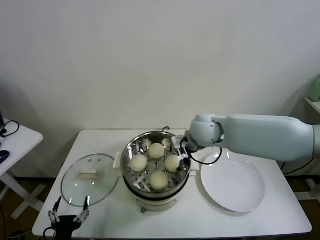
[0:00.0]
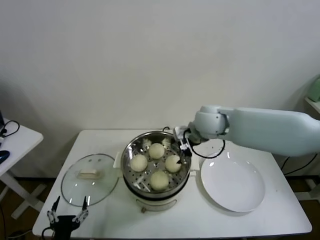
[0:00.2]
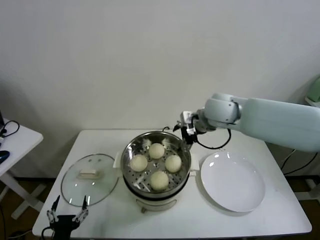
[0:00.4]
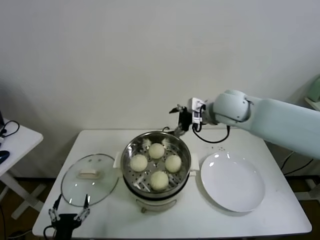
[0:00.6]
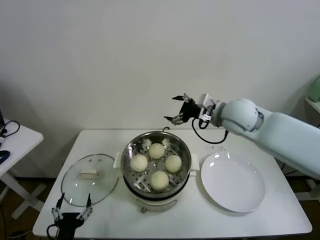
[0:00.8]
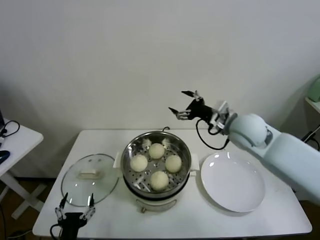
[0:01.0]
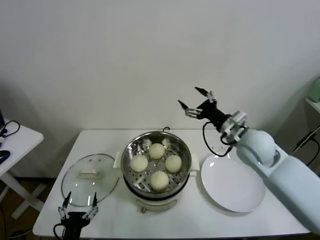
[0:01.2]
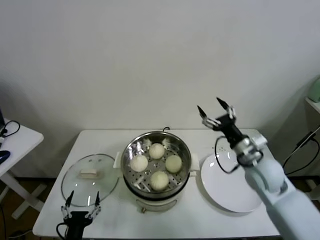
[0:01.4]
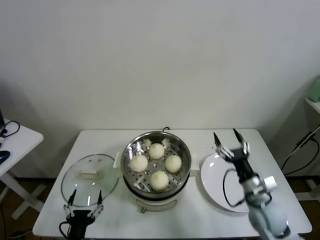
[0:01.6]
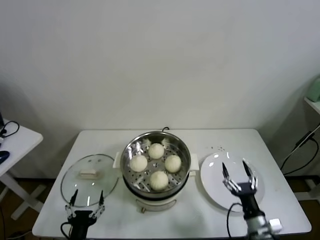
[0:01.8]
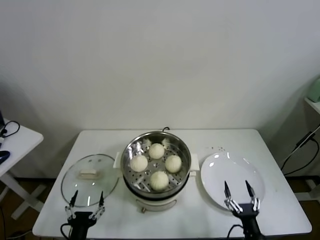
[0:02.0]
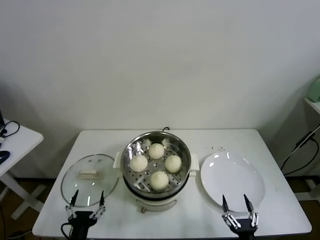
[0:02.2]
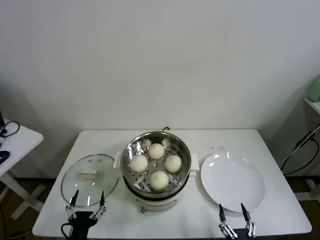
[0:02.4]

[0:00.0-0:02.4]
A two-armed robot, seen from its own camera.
Task of the whole recording: take steamed baozi put them in steamer.
0:00.0 to 0:01.2: The right gripper is displaced to the right by about 10 cm.
0:01.2 to 0:02.4: The right gripper is displaced backward and downward by roughly 50 cm.
